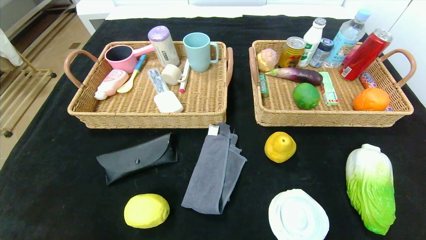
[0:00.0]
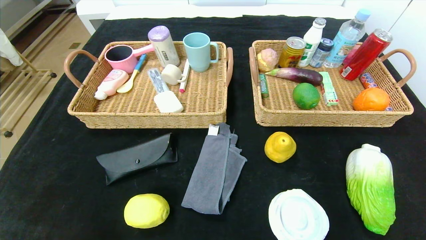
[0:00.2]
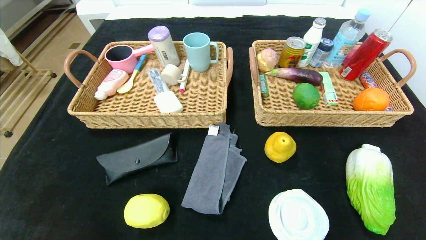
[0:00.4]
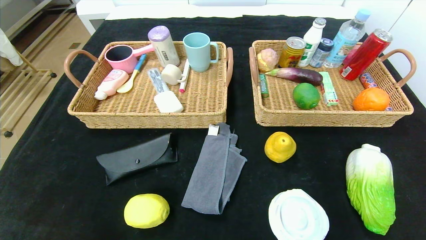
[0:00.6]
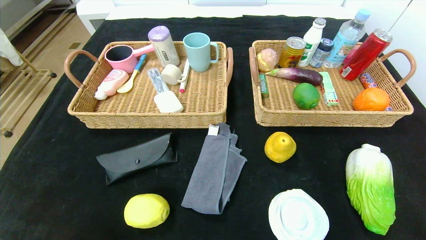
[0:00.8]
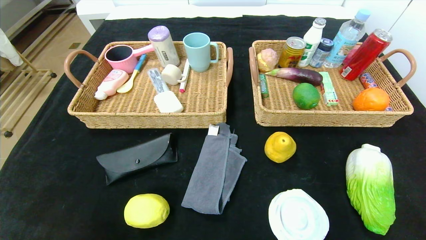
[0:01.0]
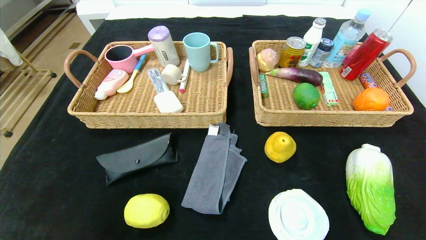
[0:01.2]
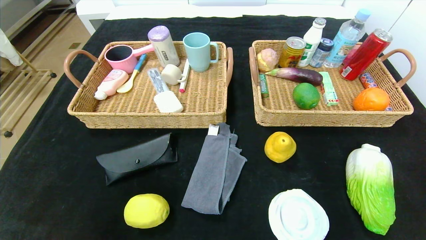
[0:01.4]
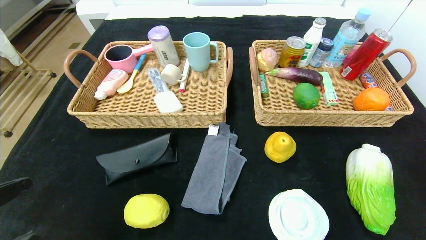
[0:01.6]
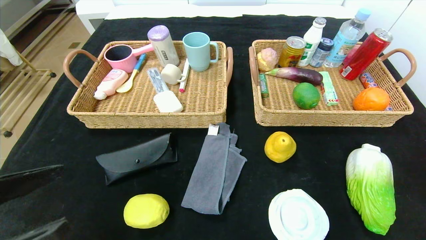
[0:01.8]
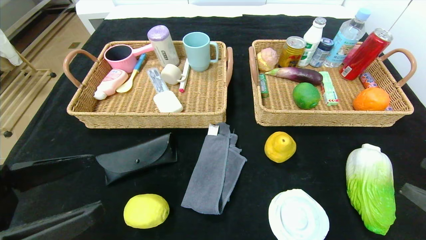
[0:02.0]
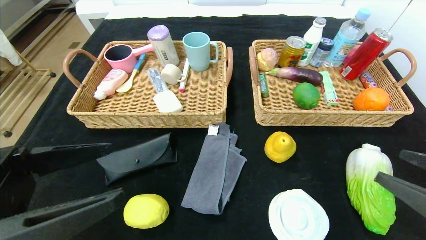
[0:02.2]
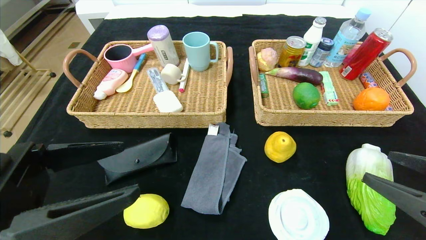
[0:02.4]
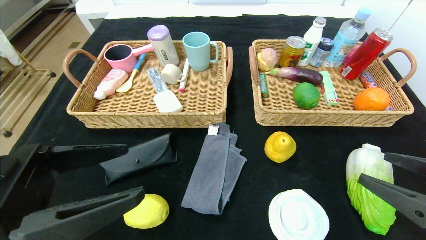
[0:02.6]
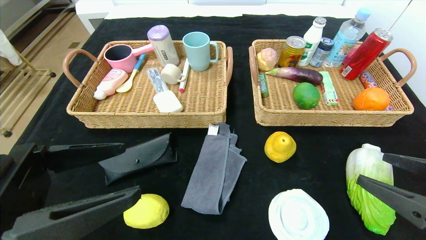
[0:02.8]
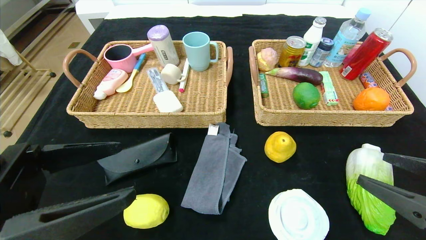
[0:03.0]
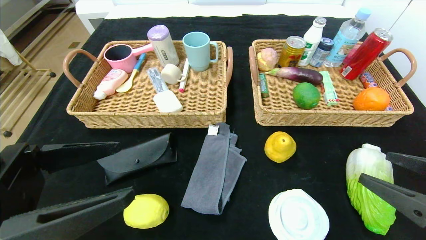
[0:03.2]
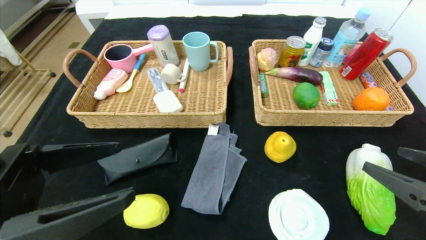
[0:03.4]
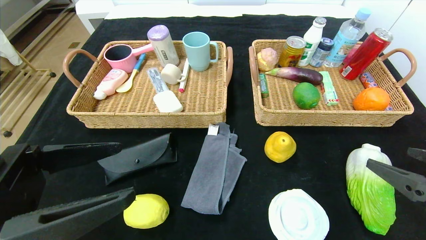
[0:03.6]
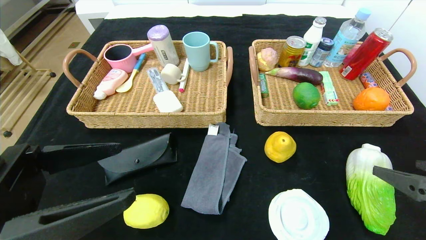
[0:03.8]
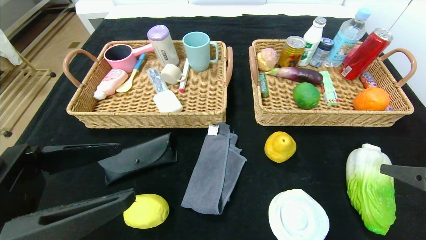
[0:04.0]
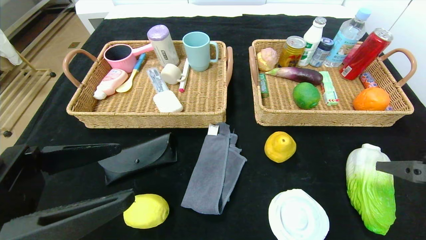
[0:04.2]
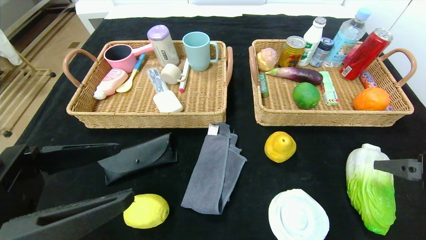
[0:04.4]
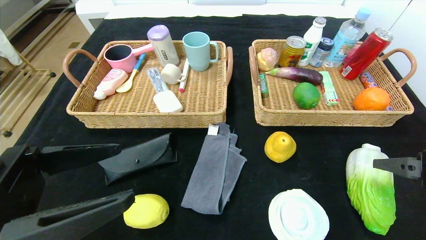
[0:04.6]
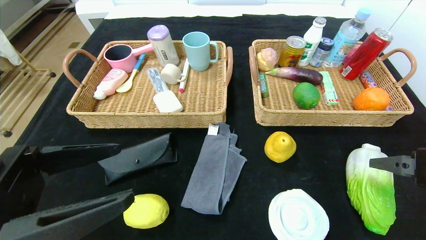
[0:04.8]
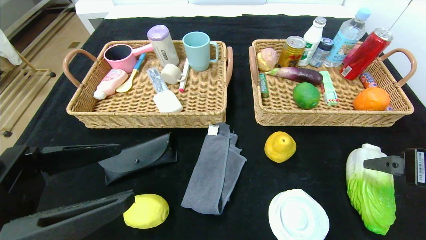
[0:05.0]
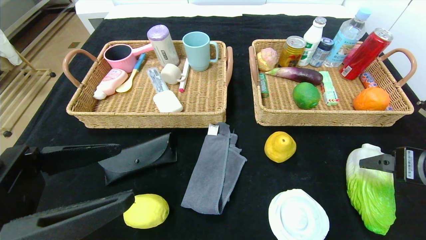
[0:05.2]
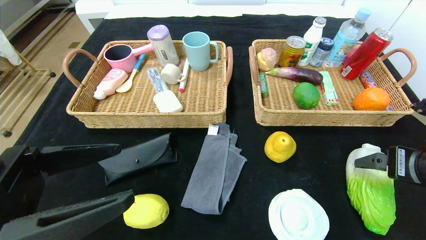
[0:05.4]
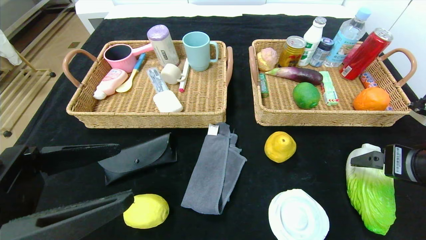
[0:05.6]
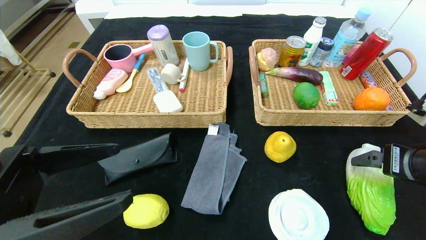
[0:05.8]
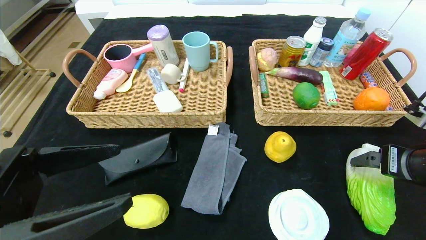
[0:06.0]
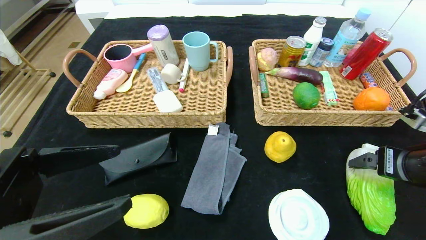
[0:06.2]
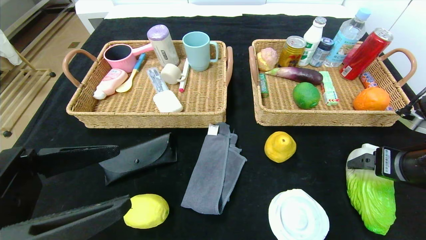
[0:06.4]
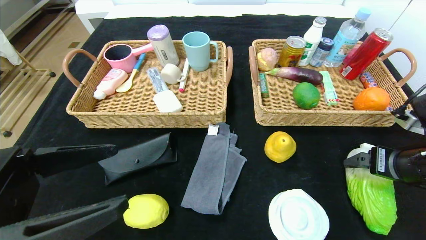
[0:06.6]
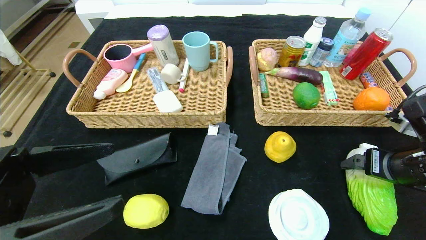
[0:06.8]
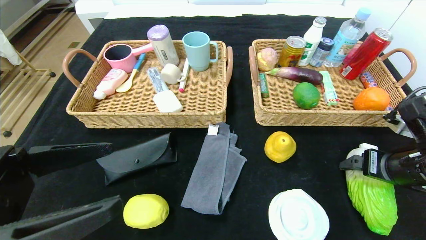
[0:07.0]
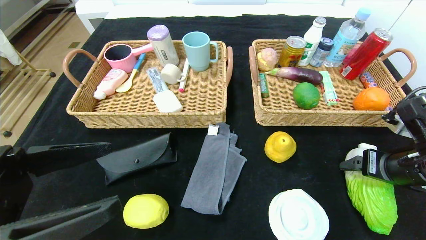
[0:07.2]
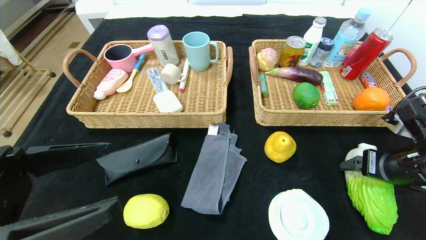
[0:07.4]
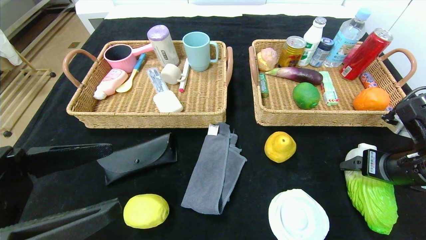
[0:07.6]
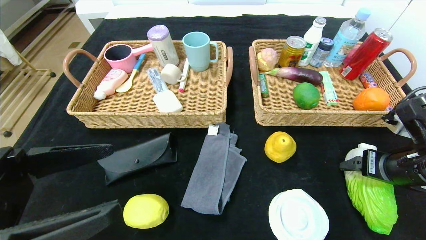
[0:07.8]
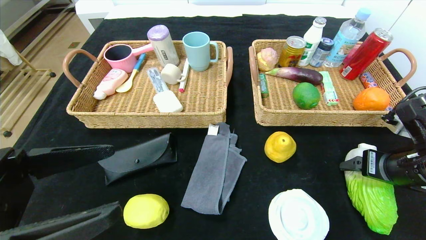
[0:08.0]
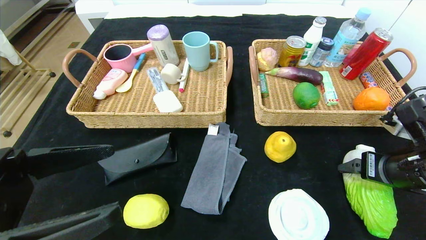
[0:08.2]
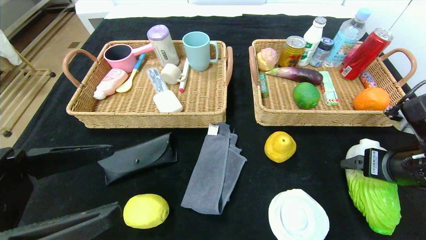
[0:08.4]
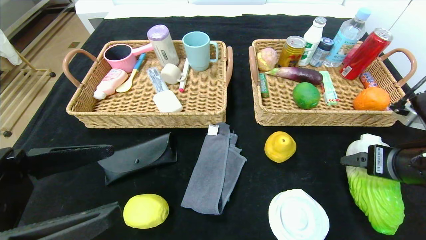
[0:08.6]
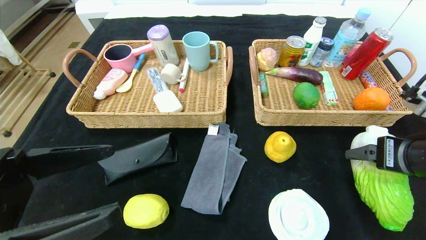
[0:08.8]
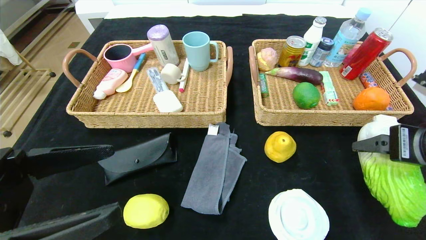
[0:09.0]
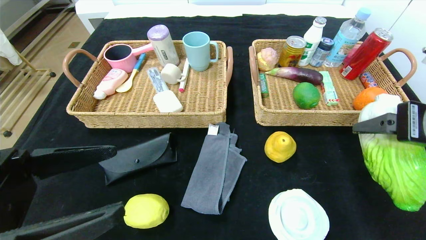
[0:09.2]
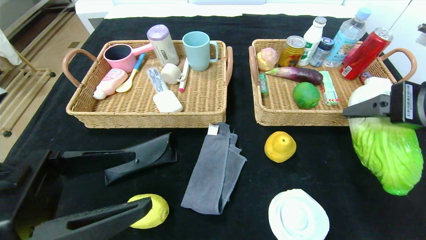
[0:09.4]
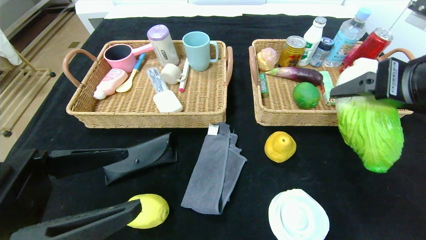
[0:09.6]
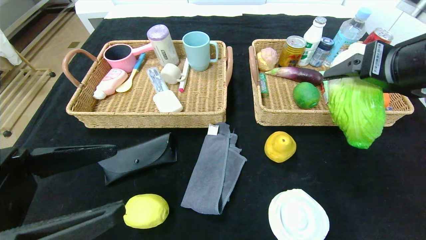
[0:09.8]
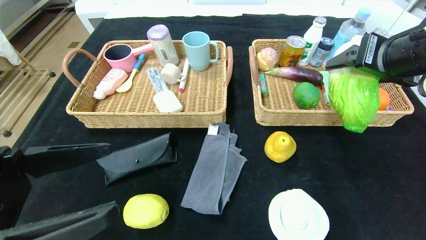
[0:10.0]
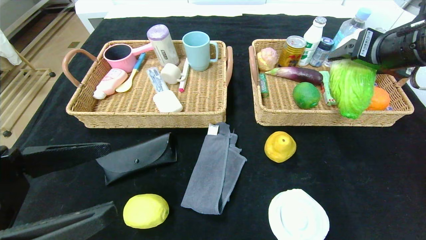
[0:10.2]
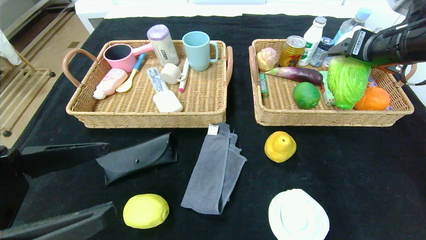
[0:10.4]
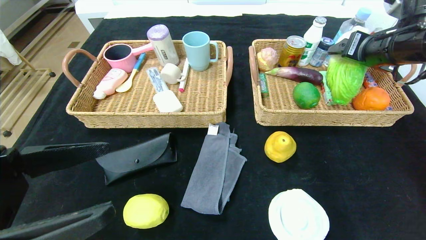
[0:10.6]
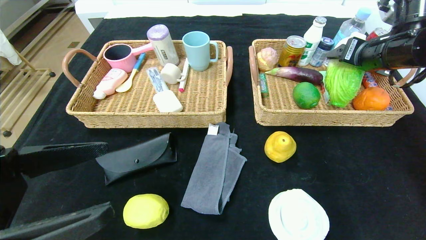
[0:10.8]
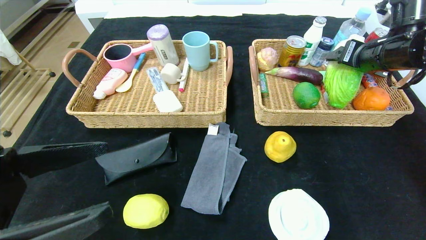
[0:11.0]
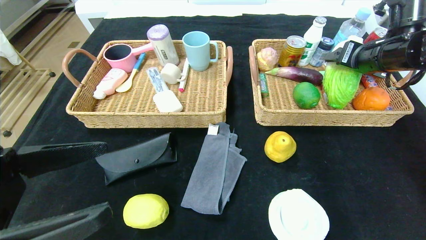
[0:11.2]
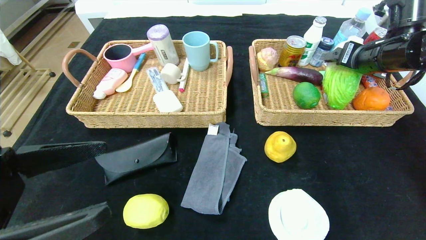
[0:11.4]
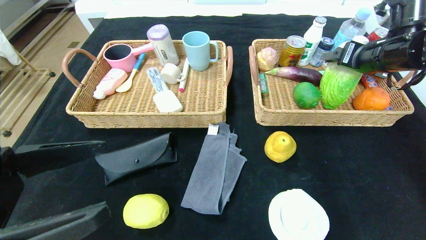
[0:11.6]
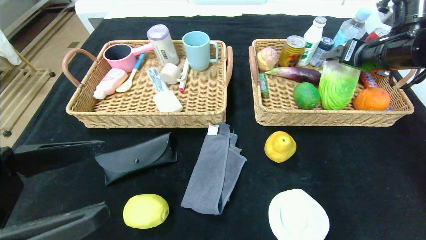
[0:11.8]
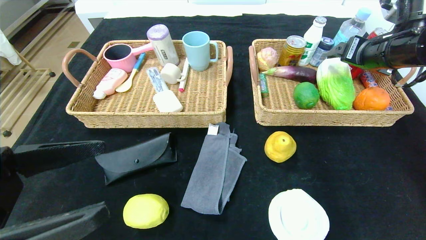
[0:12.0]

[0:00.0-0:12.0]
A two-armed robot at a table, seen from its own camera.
0.0 to 1.6 s: The left gripper shifts about 15 cm upward.
1.6 to 3.0 s: The left gripper moves forward, some 5 cm. The right gripper travels forward and to the left by roughly 10 cm.
4.4 to 6.0 s: The right gripper shifts approximately 5 cm forward.
6.0 to 7.6 s: There are only small adjustments of the grippers.
7.6 to 9.0 s: The right gripper goes roughly 10 cm upward.
9.0 to 10.4 s: The right gripper travels forward and upward by about 15 cm.
10.4 to 12.0 s: The grippers stay close to where they were, moving slightly.

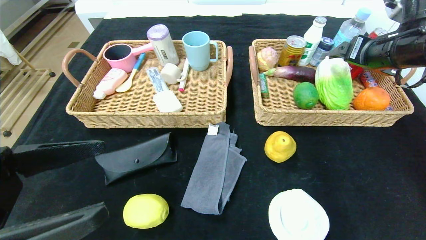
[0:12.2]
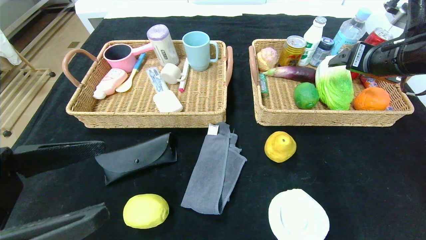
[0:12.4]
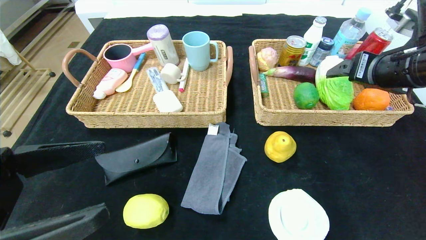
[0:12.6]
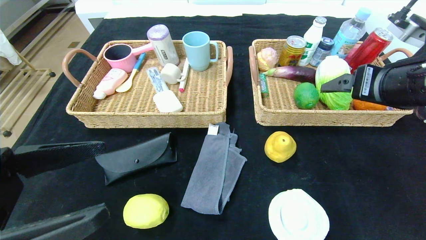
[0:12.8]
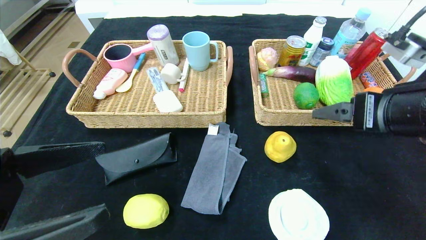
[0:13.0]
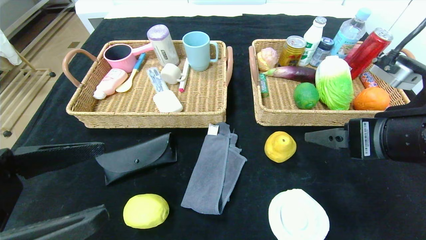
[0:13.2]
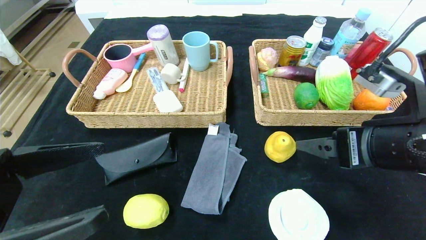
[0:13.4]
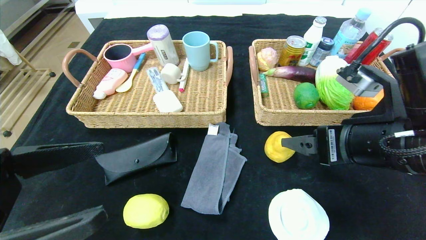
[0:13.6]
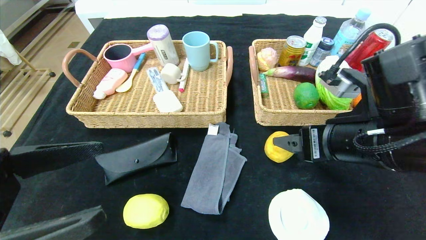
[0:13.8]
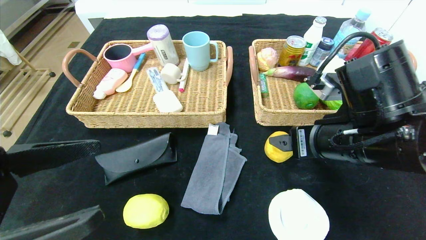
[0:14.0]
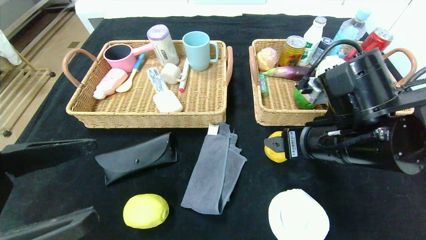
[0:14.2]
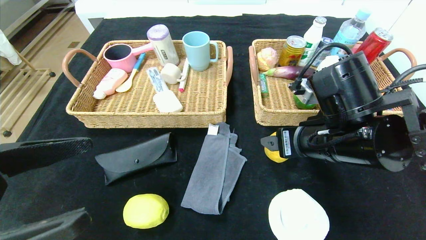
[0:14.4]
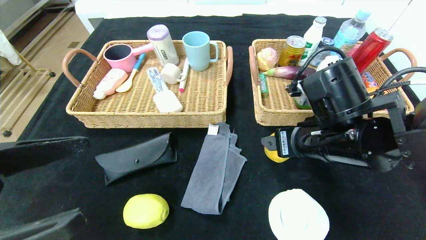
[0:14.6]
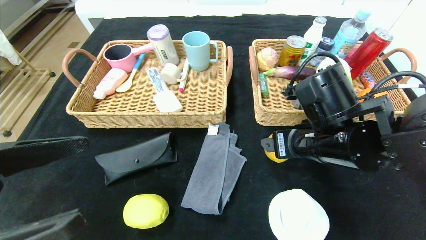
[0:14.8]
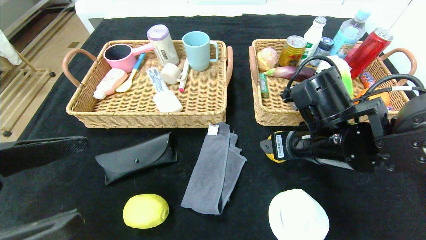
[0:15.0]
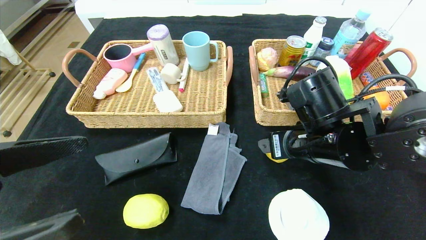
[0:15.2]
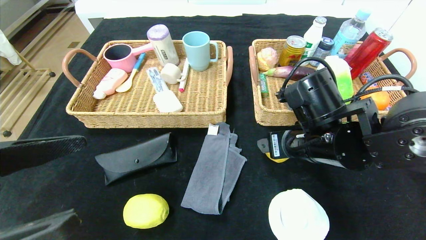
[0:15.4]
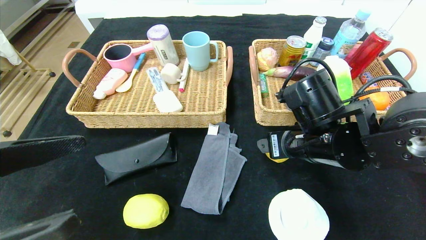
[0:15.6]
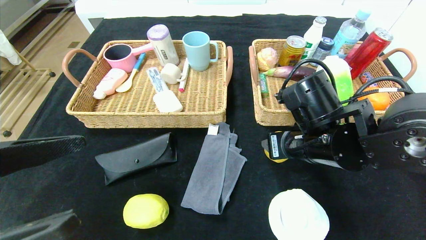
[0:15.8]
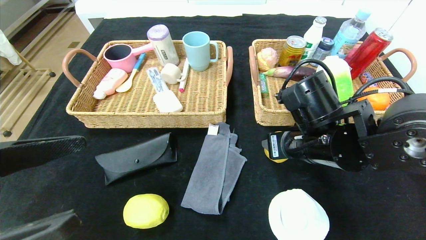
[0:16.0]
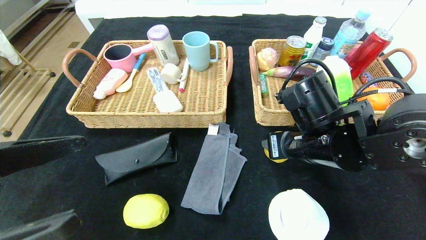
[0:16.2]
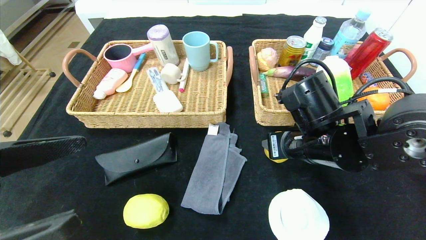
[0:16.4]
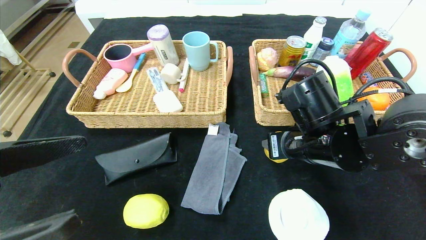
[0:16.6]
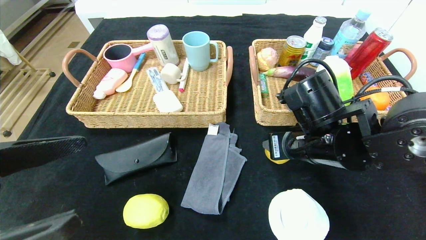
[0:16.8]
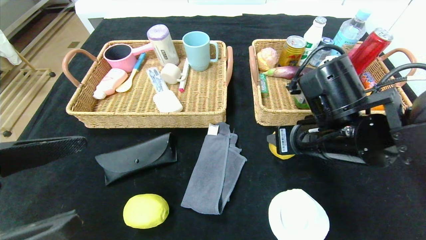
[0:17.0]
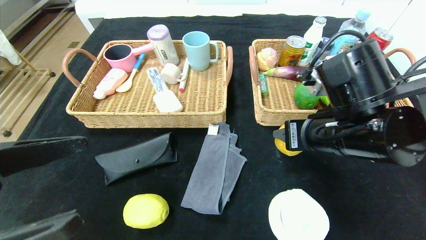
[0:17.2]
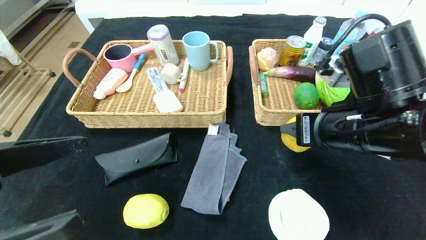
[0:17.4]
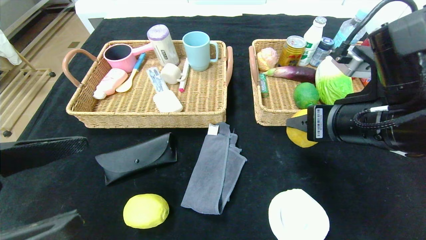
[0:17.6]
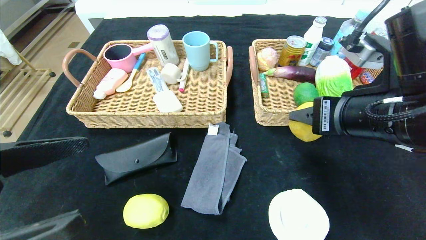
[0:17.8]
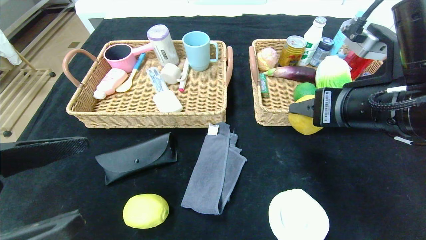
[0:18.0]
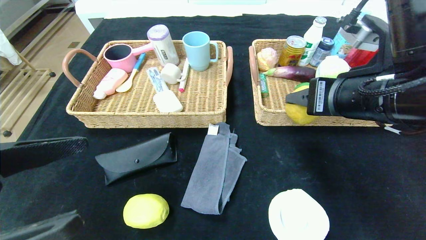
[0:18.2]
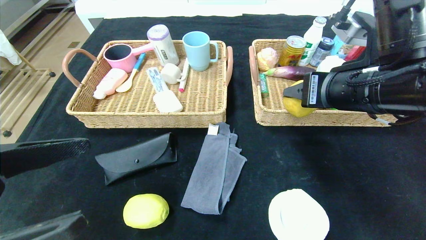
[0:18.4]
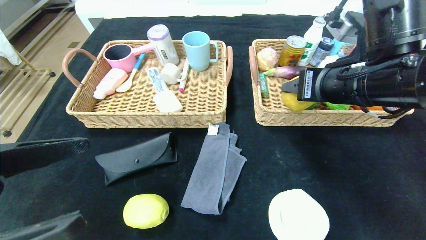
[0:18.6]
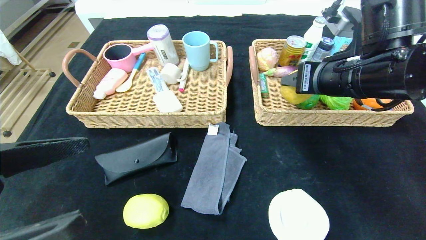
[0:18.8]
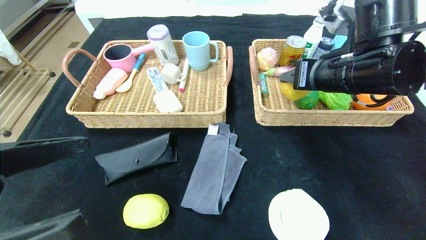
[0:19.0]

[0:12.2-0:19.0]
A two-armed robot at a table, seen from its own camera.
12.2 to 13.6 s: The right gripper is displaced backward, to the left and downward by some 20 cm.
13.6 to 15.0 s: The right gripper heads forward, covering approximately 5 cm.
15.0 to 16.2 s: Both grippers stay put.
16.2 to 17.6 s: The right gripper shifts about 10 cm upward and backward.
17.6 to 19.0 s: The right gripper travels forward by about 10 cm.
